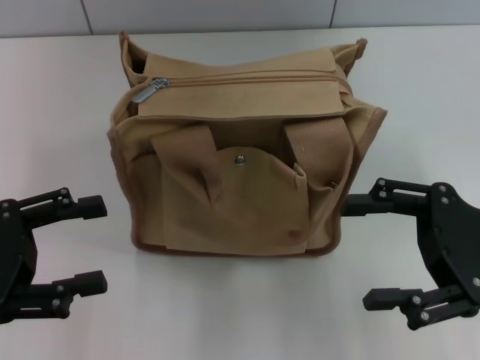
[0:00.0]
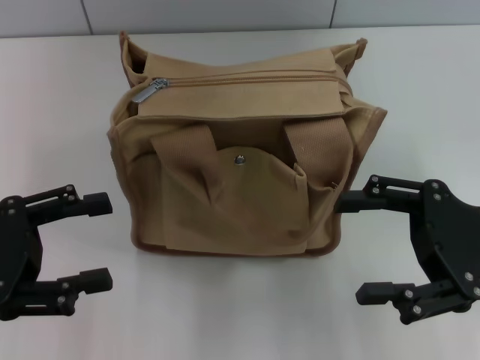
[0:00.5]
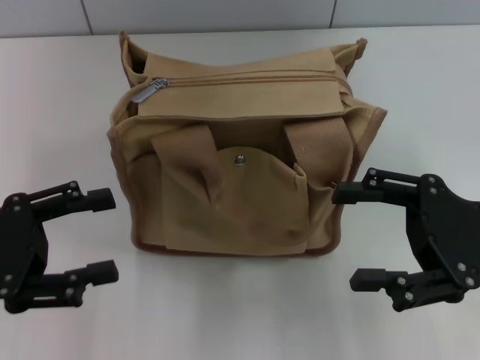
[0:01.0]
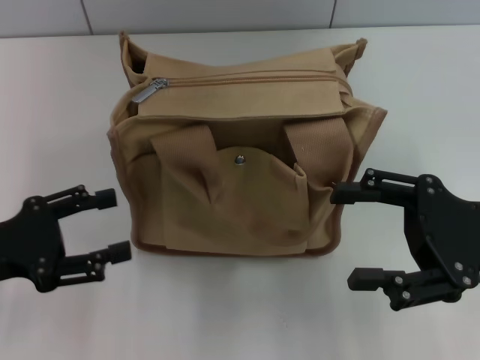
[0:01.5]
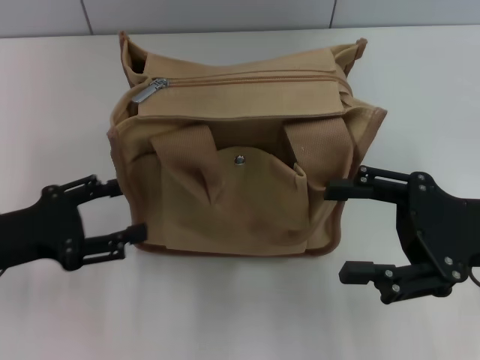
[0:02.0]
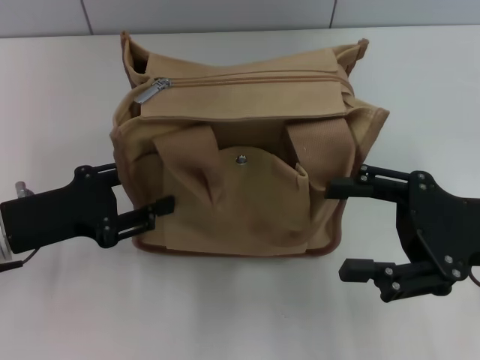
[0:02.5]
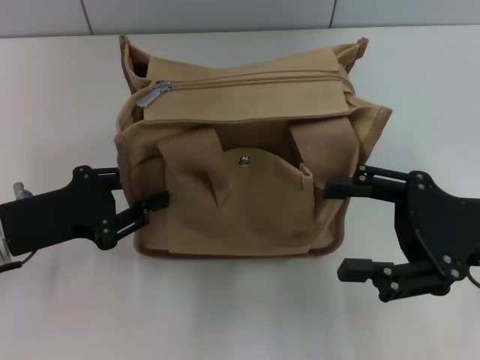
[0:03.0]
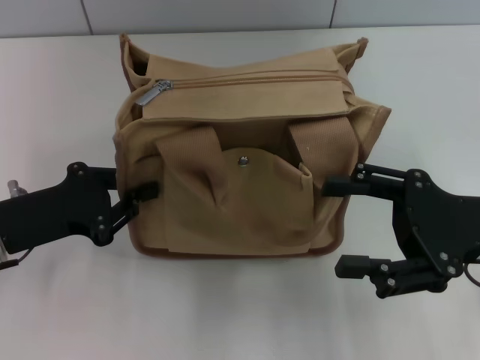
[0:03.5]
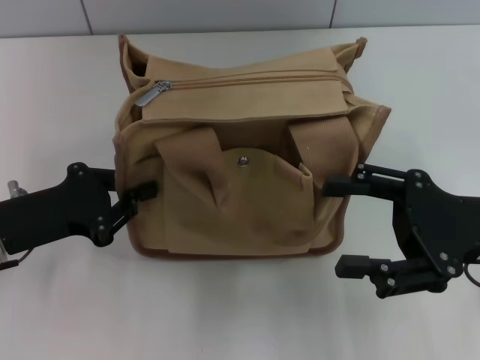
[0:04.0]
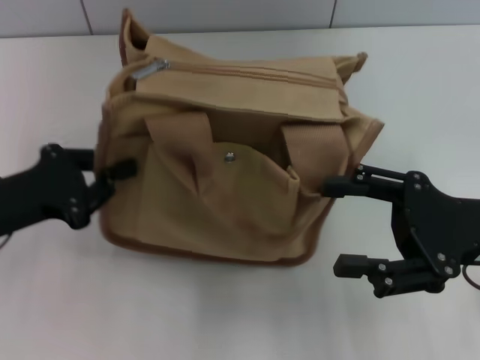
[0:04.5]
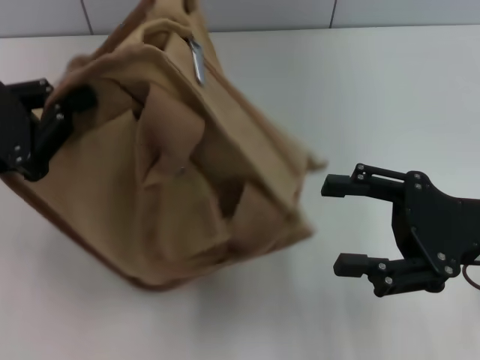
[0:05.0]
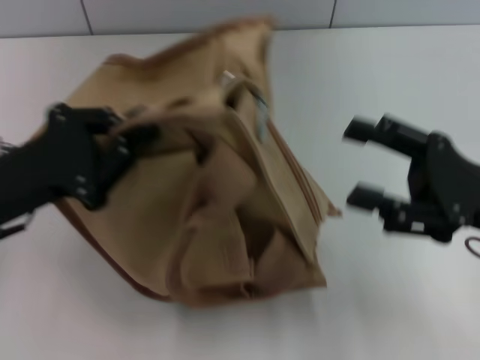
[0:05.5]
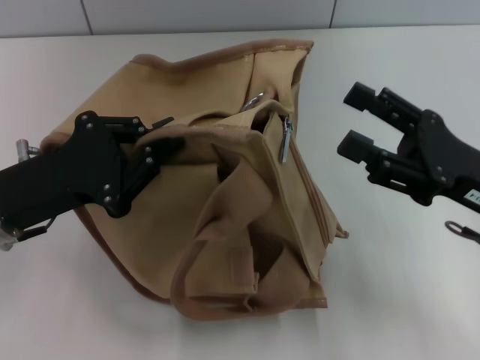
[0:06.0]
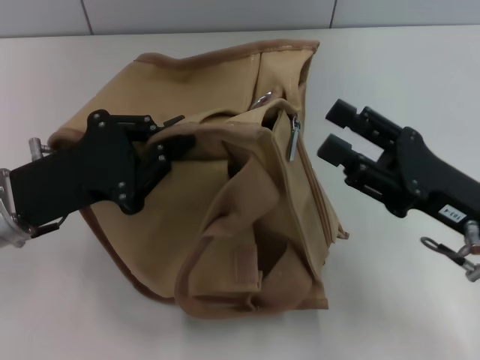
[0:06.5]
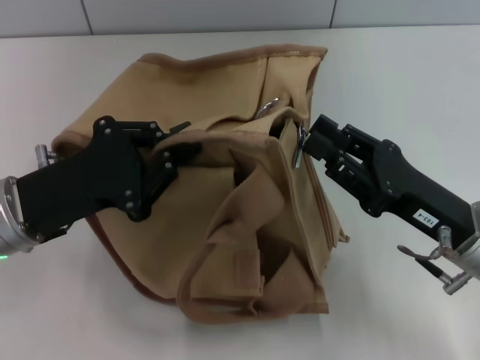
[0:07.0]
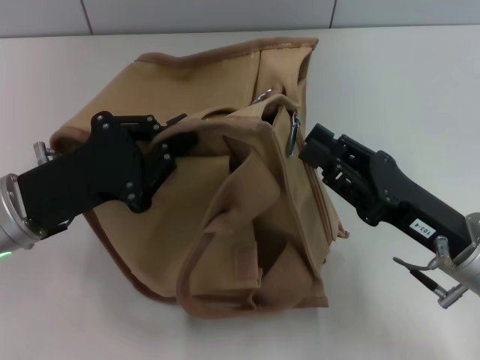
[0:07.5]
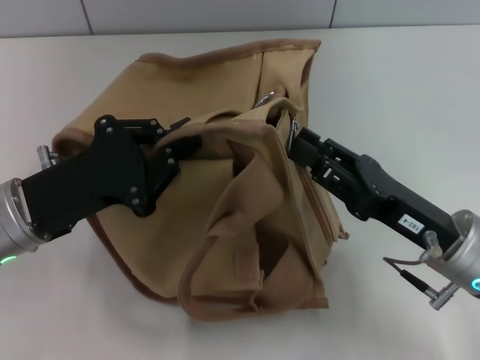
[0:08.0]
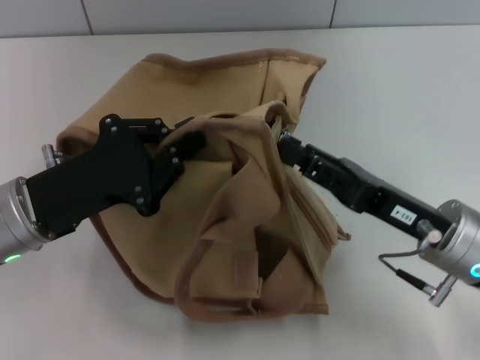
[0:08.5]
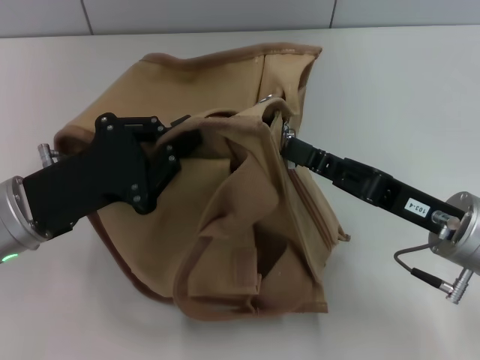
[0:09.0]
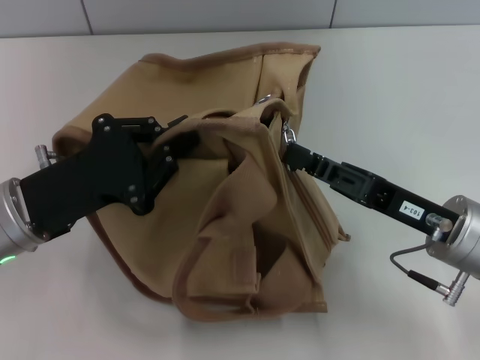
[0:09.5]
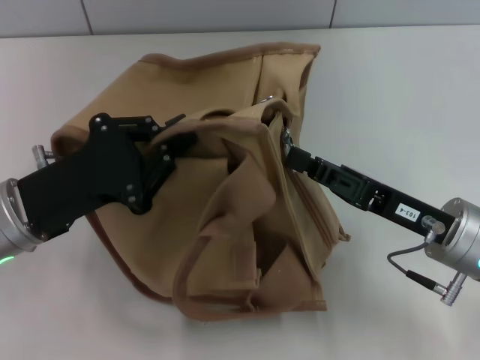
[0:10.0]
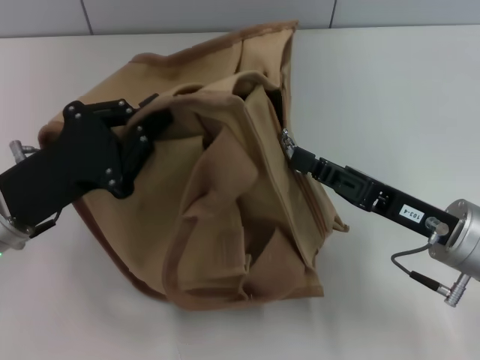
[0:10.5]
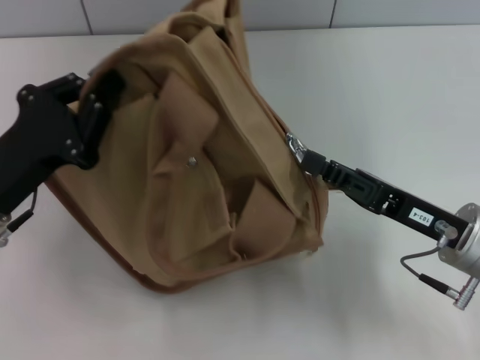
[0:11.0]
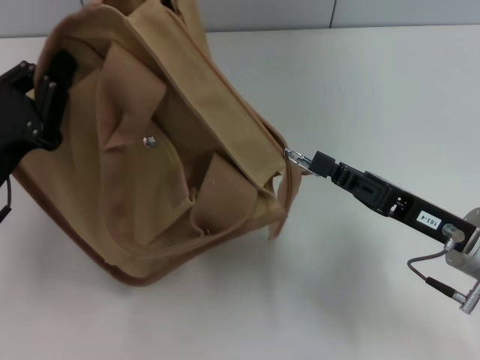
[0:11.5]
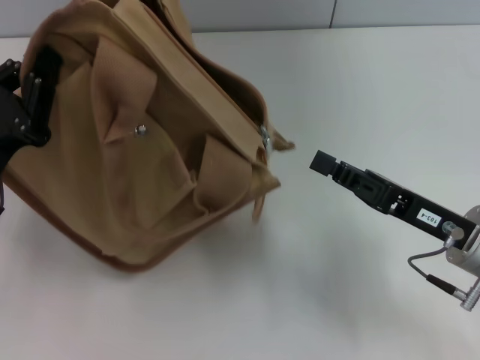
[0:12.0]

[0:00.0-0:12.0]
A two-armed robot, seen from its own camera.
Step, 0.0 to 11.5 s: Pull open the zipper with your right hand.
0.0 to 2.0 s: The left gripper moves approximately 5 cm.
2.0 to 4.0 s: The left gripper closes its fingers.
6.0 to 8.0 s: The right gripper moves some 5 cm, and closes.
8.0 to 10.0 s: The right gripper closes.

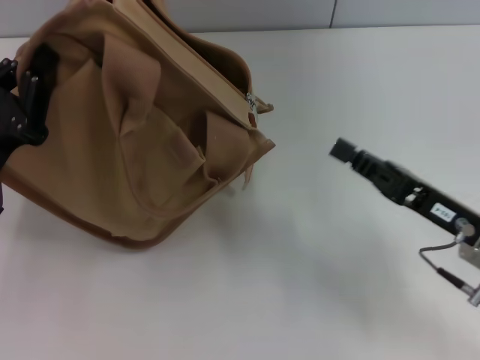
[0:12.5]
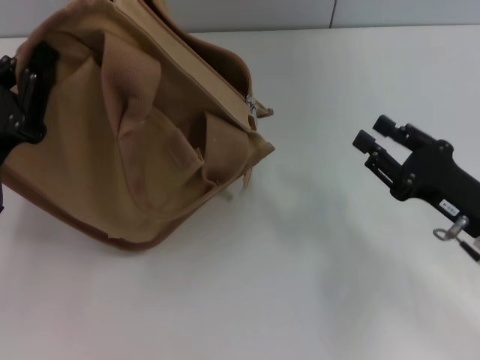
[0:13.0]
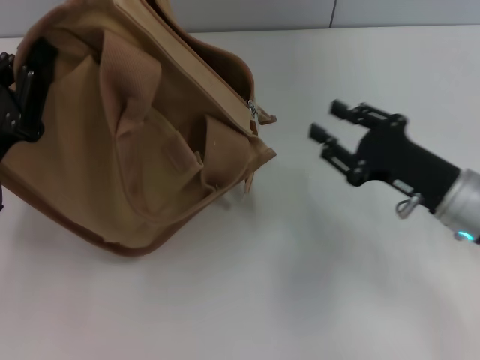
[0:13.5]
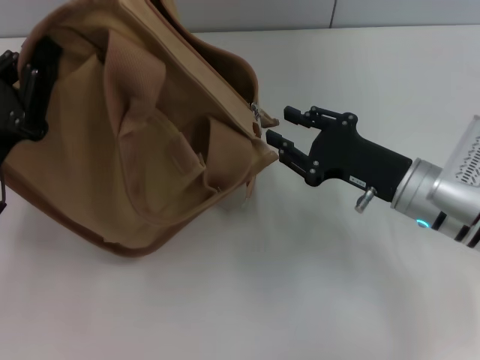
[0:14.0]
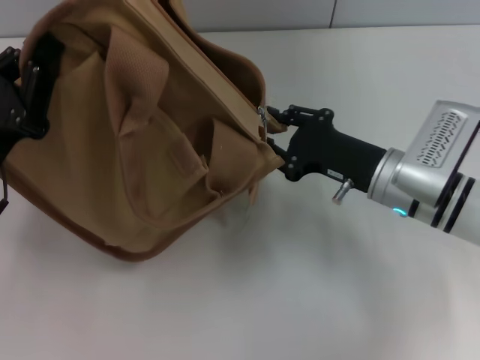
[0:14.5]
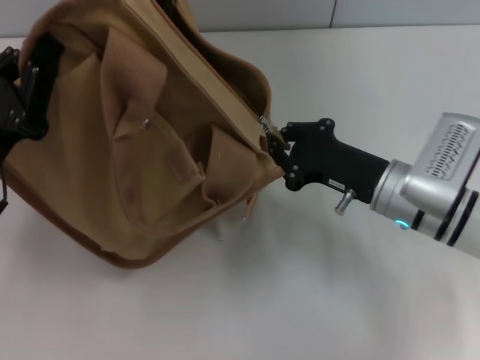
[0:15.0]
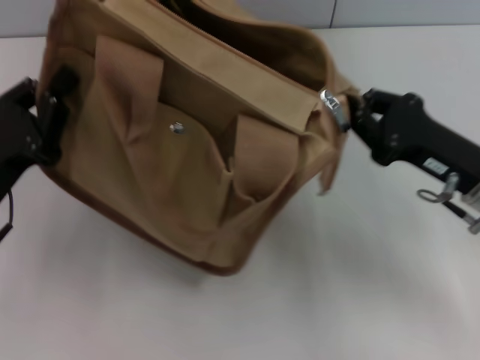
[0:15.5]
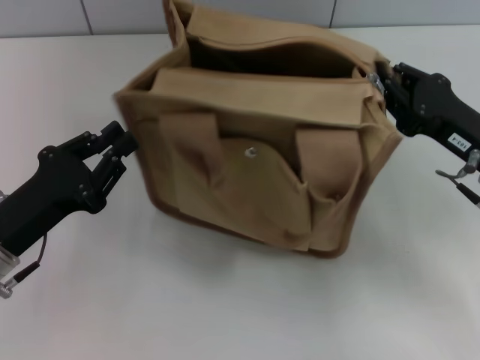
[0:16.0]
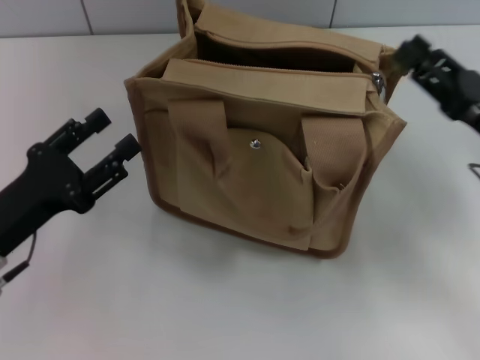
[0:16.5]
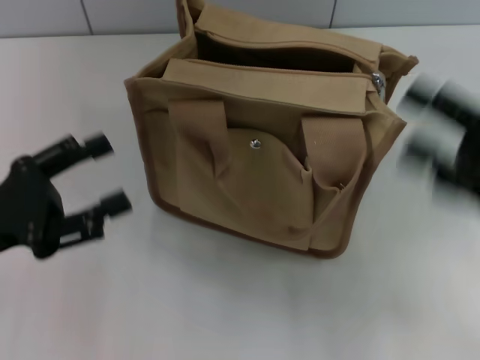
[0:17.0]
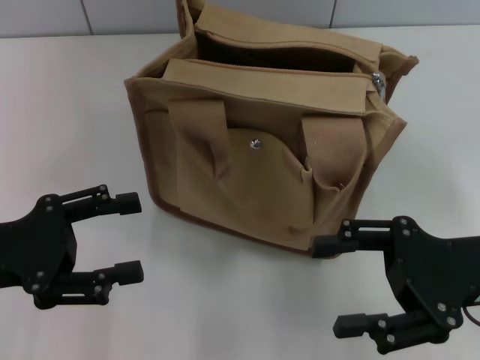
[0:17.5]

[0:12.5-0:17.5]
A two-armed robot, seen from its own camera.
Step, 12.5 to 16.0 s: Grab the bag with your left hand.
12.5 to 15.0 s: The right gripper is displaced forward and to the left by approximately 10 cm, and opens and closes again.
15.0 to 17.5 s: The left gripper opens its fingers. Meanwhile the right gripper shifts about 10 cm backward, to the right and upward, and opens its fingers.

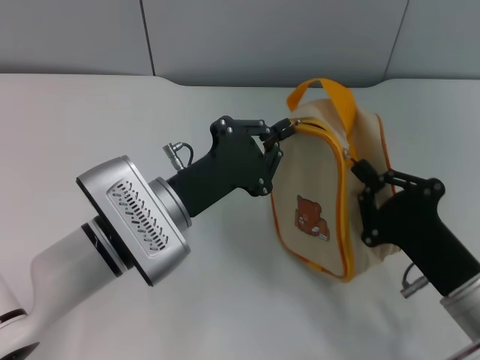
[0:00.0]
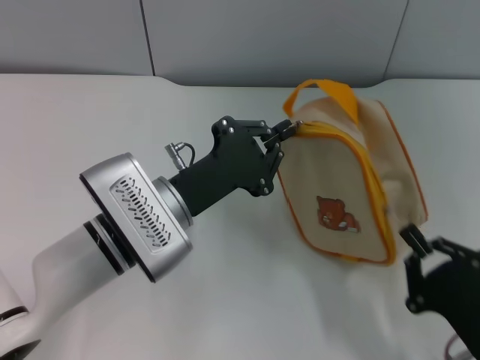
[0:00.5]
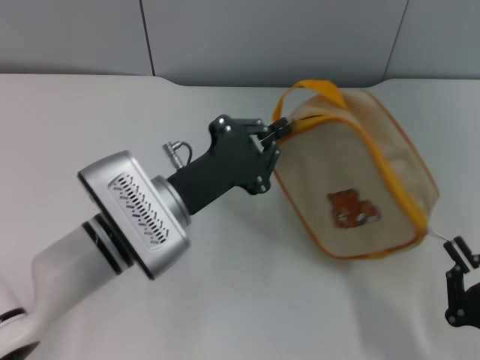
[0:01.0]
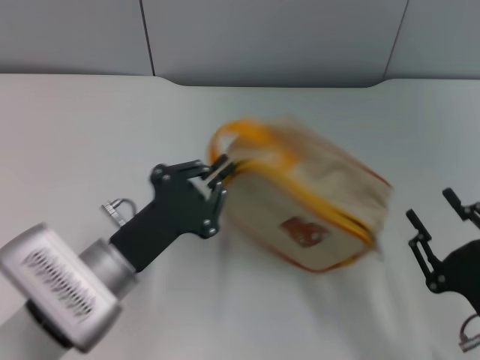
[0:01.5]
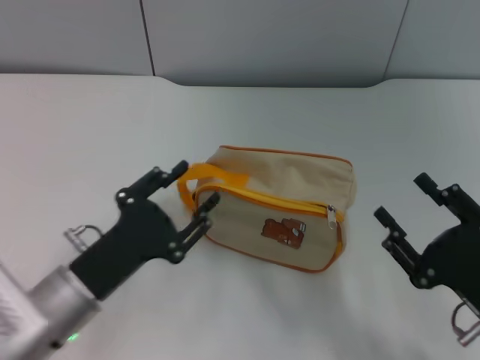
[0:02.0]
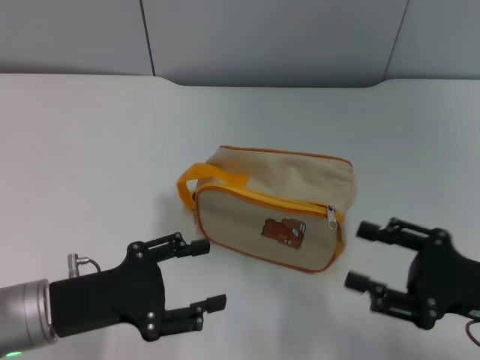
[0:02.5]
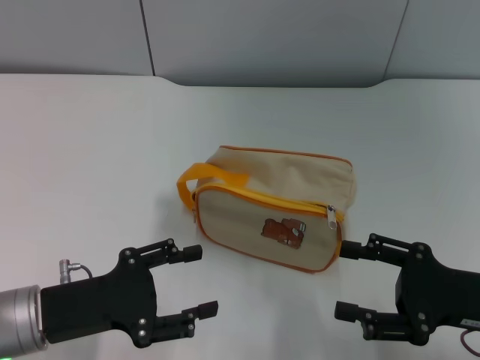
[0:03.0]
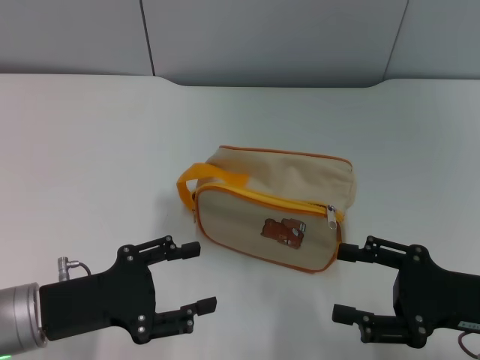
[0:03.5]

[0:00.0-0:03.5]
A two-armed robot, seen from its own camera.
0.0 to 2.0 s: The right gripper opens its fingers, while the left gripper moves backward and to the left, some 10 cm, and opens up.
2.0 to 3.5 s: The left gripper travels to the left by approximately 5 cm, and opens its fingers, while the right gripper changes place by roughly 5 cm.

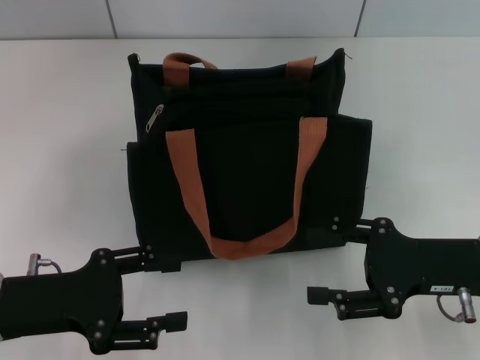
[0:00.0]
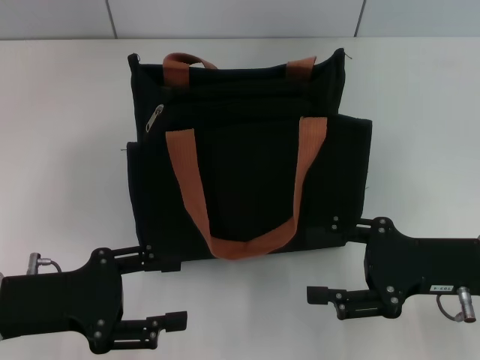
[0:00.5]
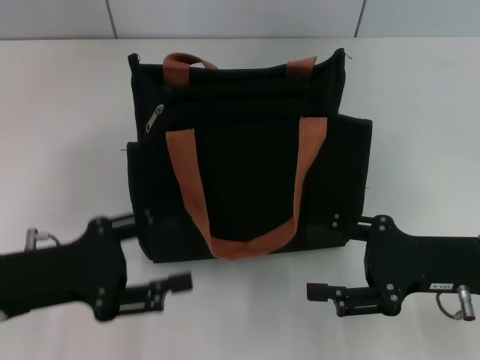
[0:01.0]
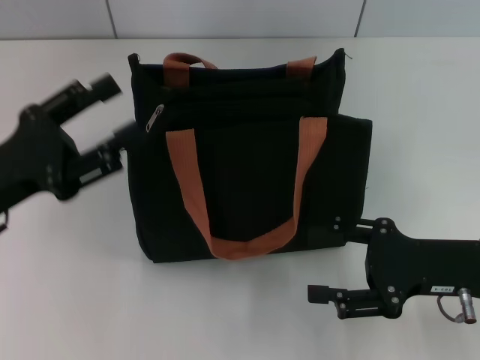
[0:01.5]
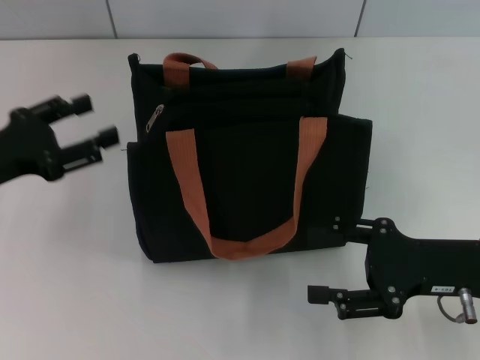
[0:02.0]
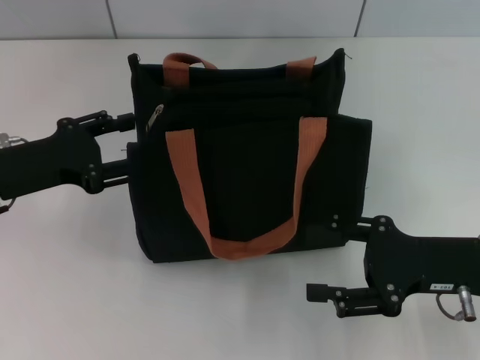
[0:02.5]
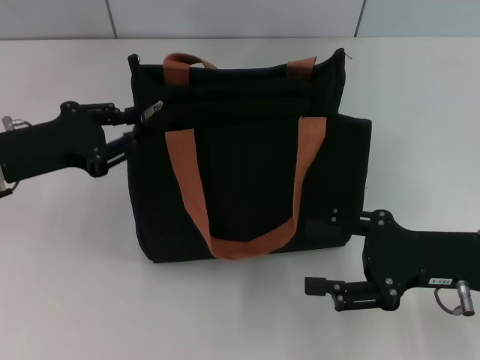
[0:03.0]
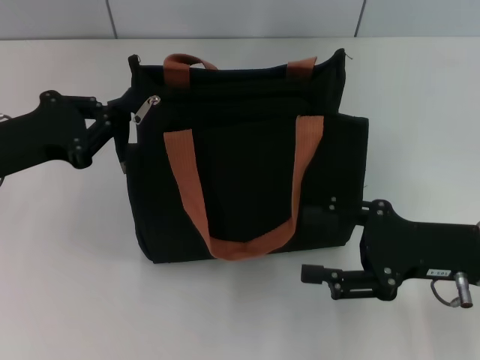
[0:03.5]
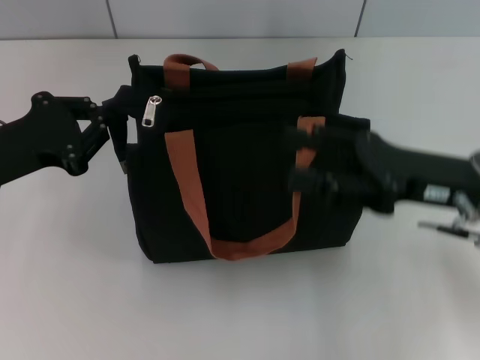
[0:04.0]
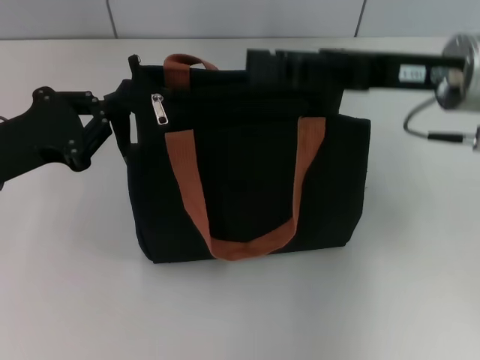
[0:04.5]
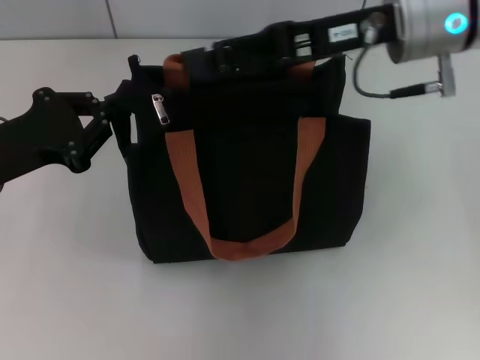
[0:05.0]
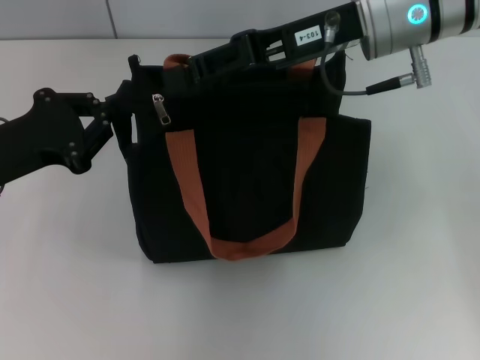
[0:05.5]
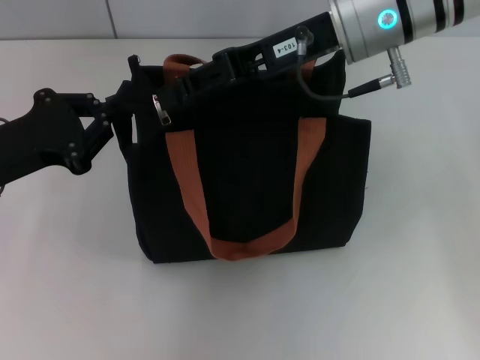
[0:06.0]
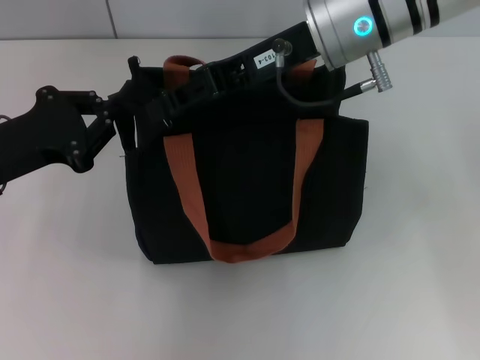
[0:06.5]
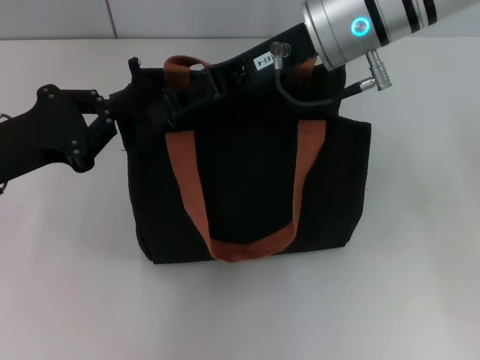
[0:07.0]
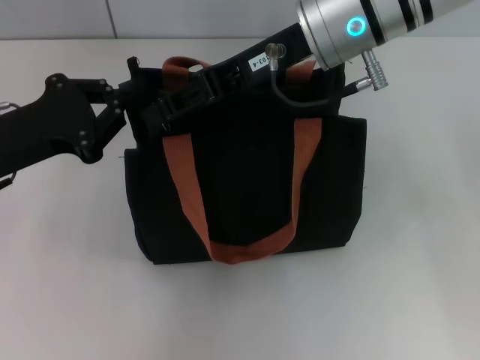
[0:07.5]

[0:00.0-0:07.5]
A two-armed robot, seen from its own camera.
0.0 to 2.0 s: The left gripper goes some 10 cm forward.
2.0 to 4.0 s: The right gripper changes place by some 5 cm; the left gripper closes up.
4.0 to 5.5 s: The right gripper travels upward, forward and to the left by about 20 cm.
5.5 to 7.5 s: The grippers move only a little.
